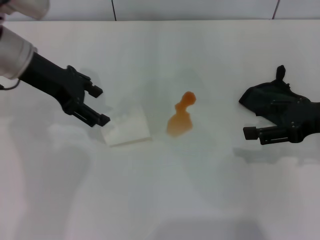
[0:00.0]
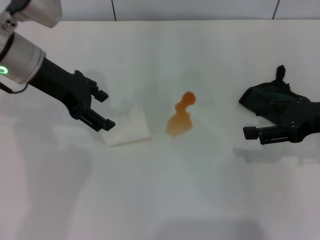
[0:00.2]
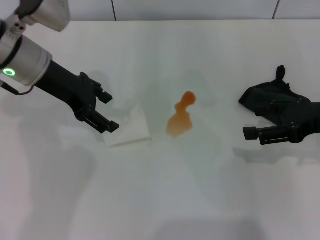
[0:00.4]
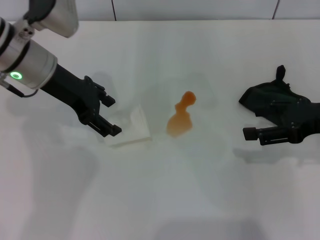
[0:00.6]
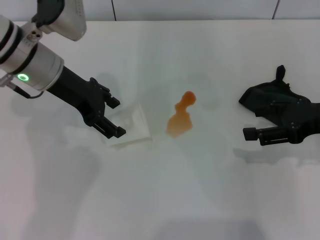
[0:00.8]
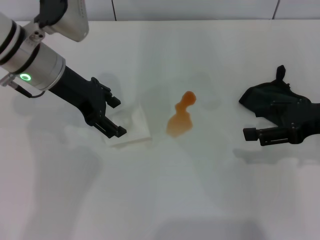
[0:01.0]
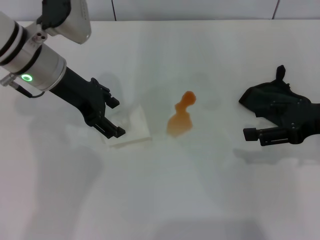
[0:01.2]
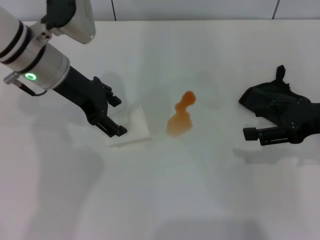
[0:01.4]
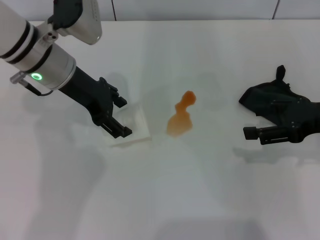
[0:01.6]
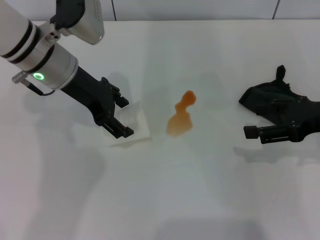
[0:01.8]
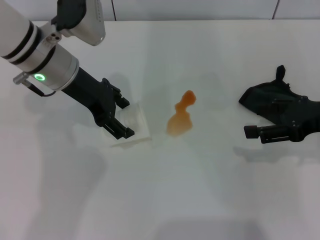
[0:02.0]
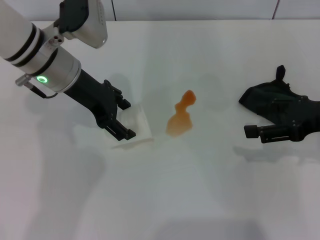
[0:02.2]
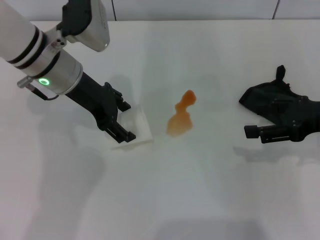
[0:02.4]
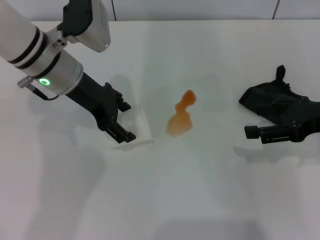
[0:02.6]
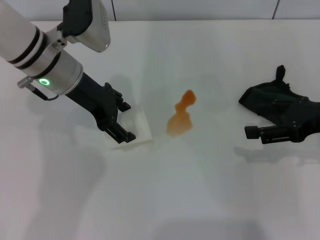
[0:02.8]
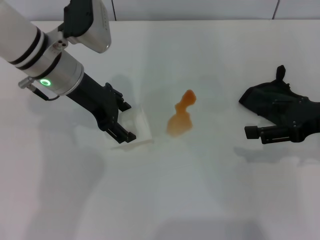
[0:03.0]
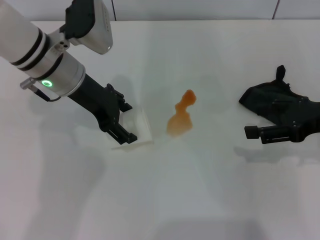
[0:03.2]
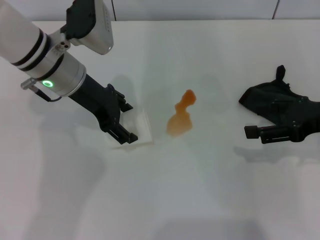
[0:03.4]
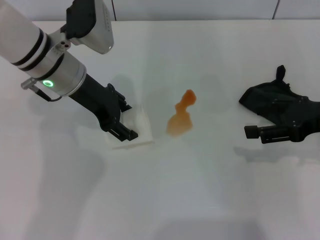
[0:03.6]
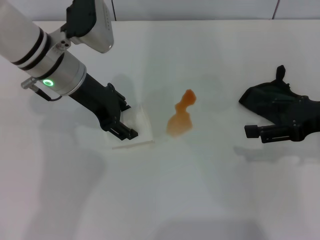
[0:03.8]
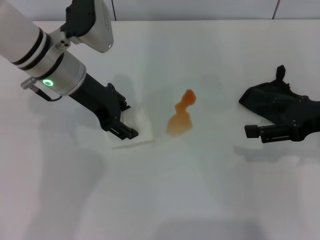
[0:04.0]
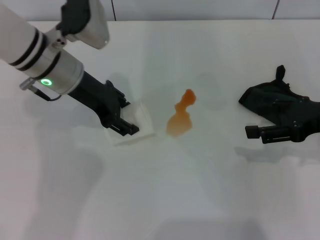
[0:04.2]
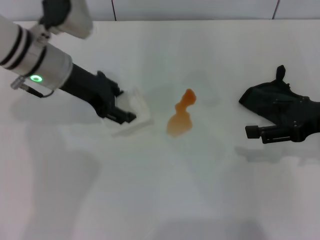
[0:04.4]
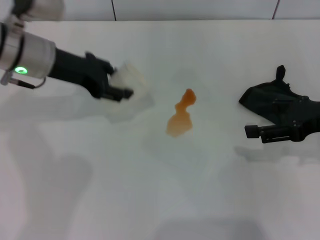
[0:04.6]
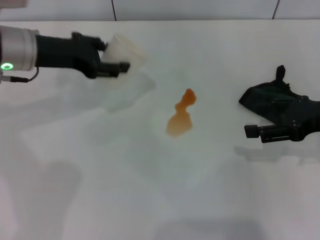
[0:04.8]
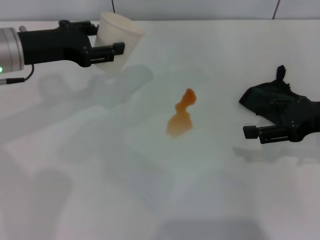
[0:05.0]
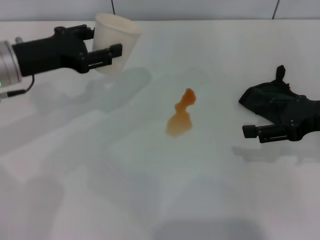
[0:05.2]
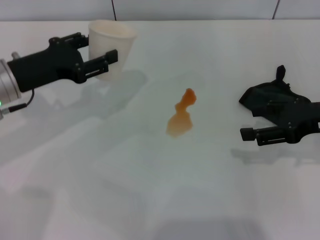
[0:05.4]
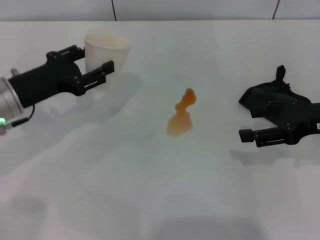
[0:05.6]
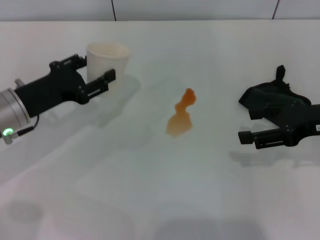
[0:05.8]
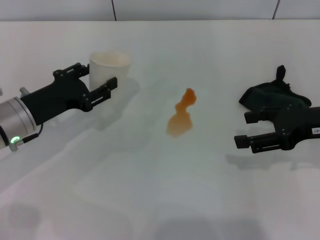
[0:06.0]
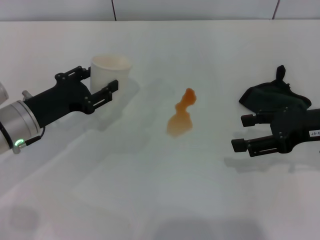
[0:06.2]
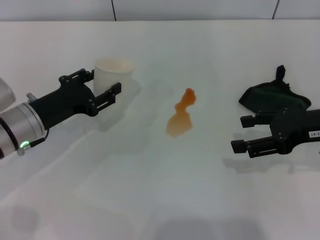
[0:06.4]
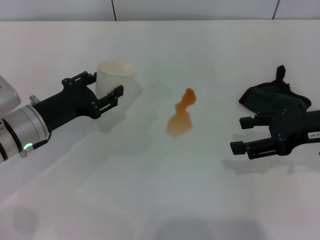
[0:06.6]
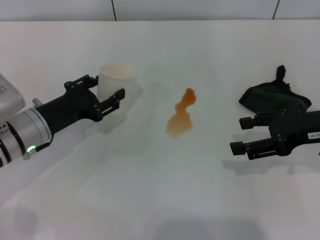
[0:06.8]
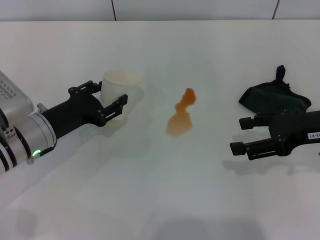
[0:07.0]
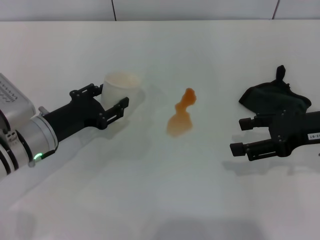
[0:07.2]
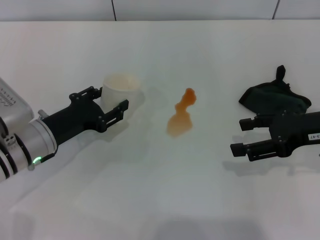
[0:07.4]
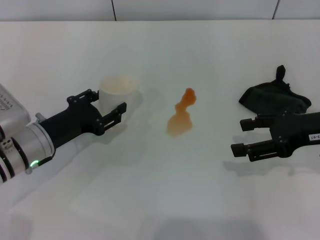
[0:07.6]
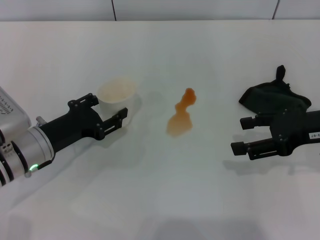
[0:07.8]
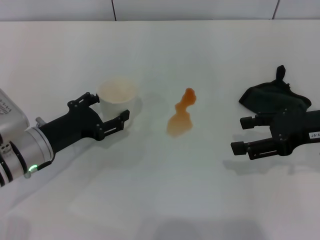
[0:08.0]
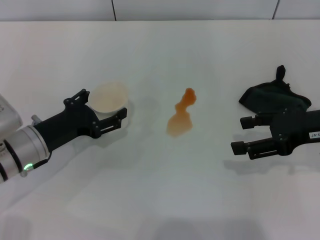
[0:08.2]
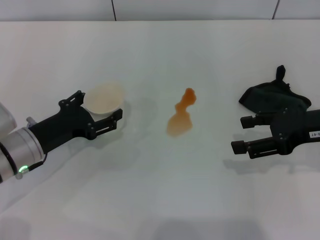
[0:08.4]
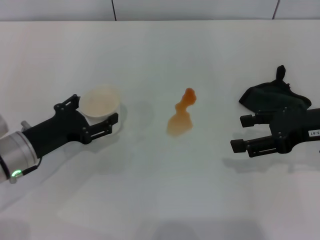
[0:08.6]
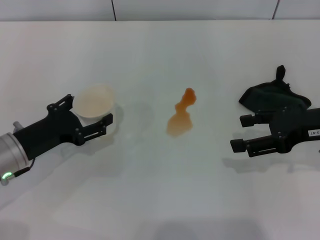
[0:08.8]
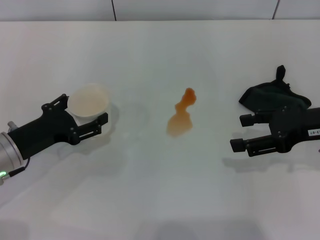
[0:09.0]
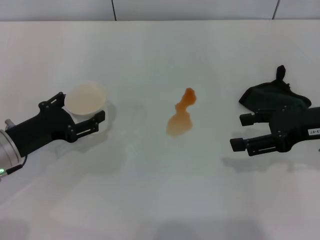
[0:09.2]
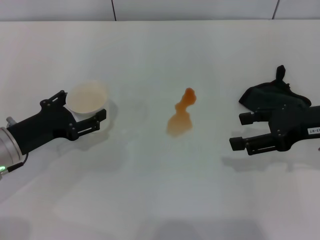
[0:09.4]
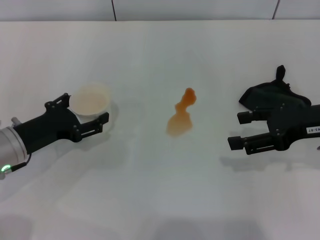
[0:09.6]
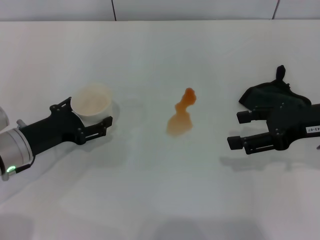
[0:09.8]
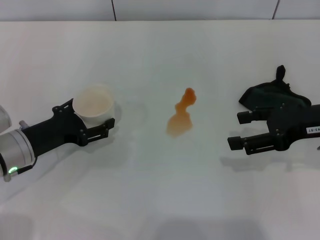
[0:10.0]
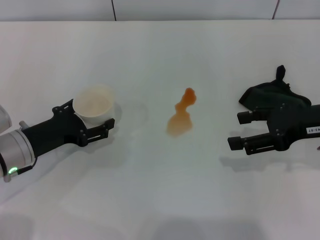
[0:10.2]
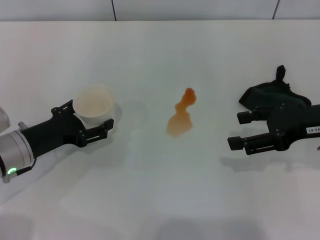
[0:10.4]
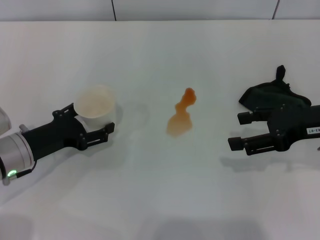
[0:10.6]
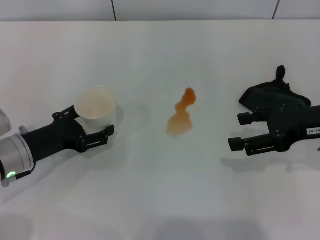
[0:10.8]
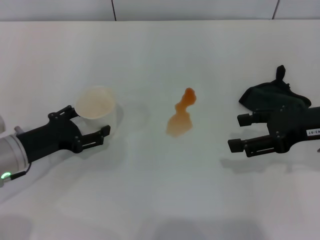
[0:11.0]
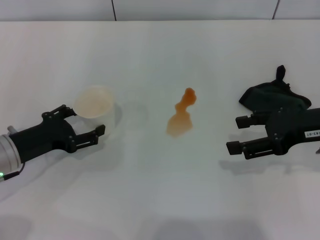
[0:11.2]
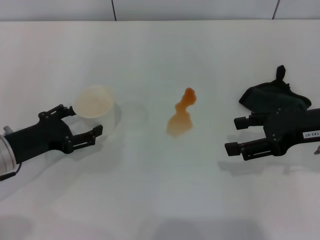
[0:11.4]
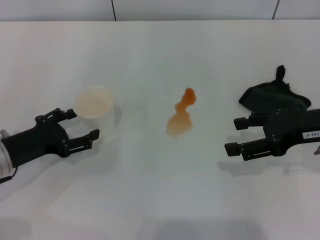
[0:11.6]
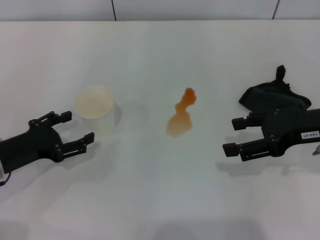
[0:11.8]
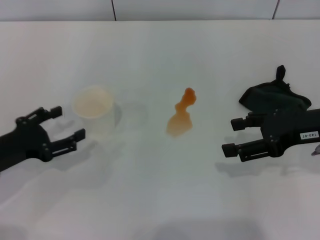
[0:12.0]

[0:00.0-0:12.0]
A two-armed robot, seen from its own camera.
Step, 0:00.0 to 0:04.0: Grasp the paper cup with the left gripper.
Step, 0:04.2 to 0:11.8: Stand the paper cup upright with the left gripper.
0:00.0 to 0:01.6: The left gripper is displaced to the right by some 5 cm.
0:01.6 to 0:03.0: Both grippers stay about where they are.
0:03.0 to 0:04.4: The left gripper closes its fingers.
0:04.4 to 0:06.0: The left gripper heads downward, backward and to the left, covering approximately 15 cm.
0:06.0 to 0:07.6: There are only small adjustments of the grippers.
0:07.6 to 0:09.0: The left gripper opens up.
0:09.0 to 0:10.4: The grippers stay close to where they were, moving slightly.
0:10.4 to 0:12.0: The left gripper moves about 5 cm.

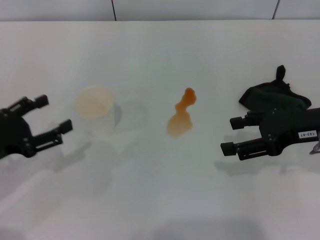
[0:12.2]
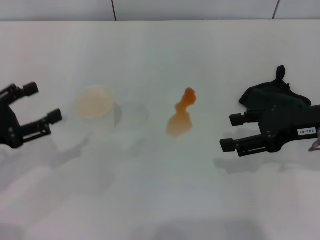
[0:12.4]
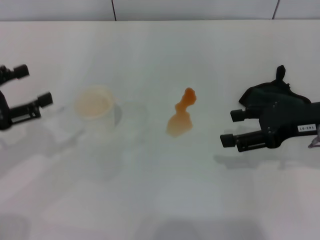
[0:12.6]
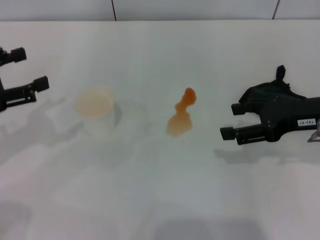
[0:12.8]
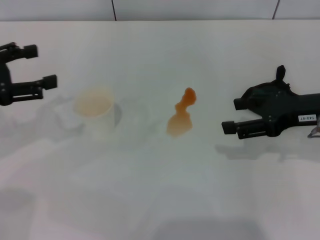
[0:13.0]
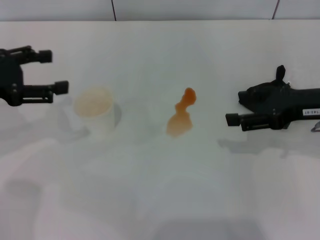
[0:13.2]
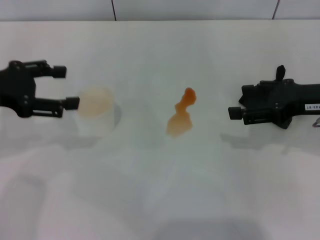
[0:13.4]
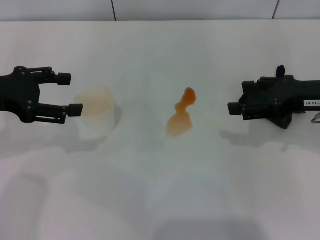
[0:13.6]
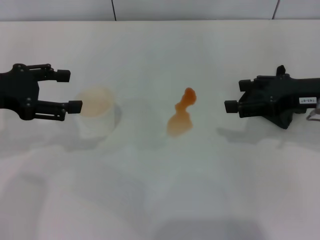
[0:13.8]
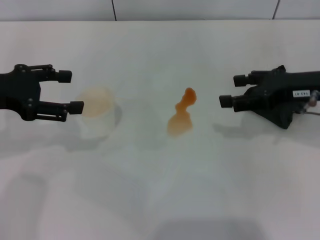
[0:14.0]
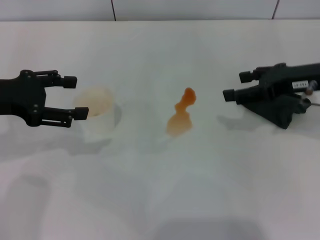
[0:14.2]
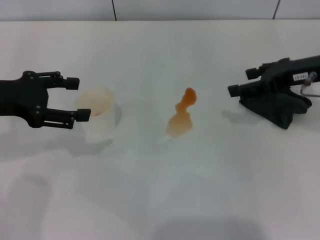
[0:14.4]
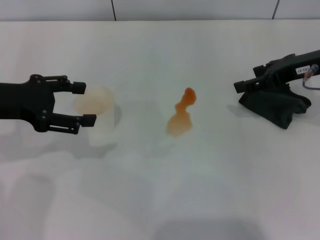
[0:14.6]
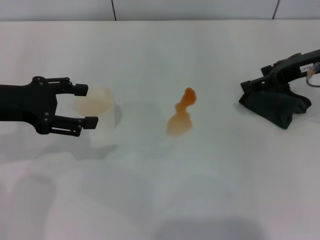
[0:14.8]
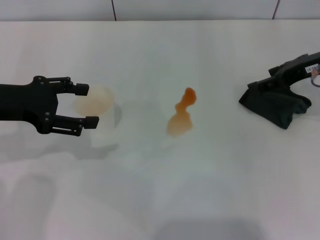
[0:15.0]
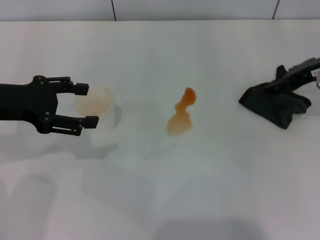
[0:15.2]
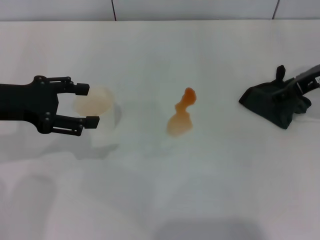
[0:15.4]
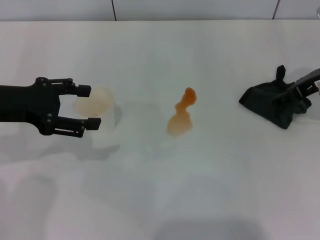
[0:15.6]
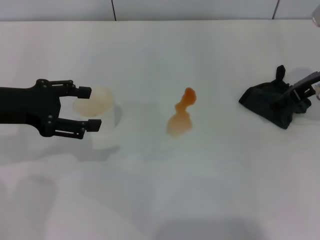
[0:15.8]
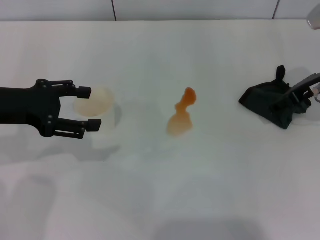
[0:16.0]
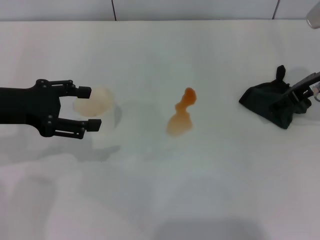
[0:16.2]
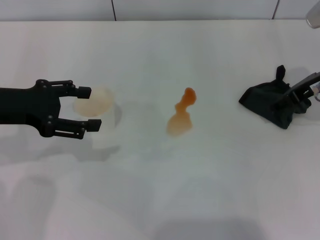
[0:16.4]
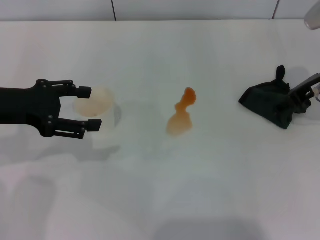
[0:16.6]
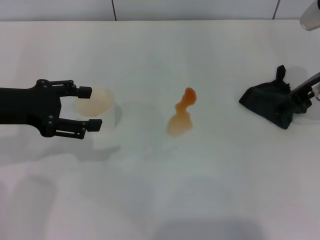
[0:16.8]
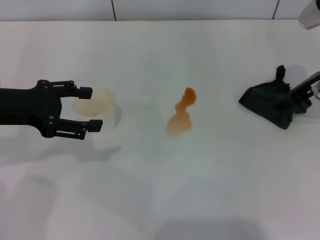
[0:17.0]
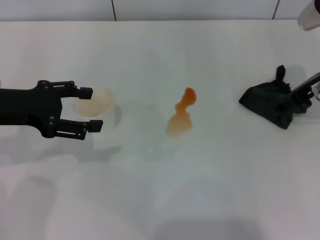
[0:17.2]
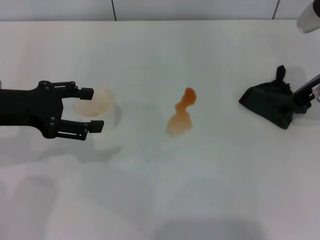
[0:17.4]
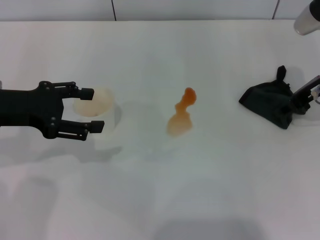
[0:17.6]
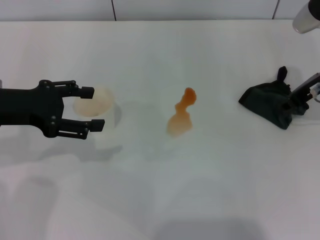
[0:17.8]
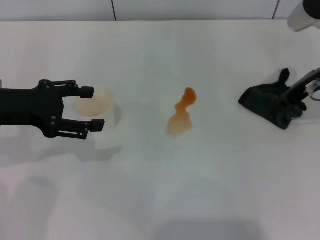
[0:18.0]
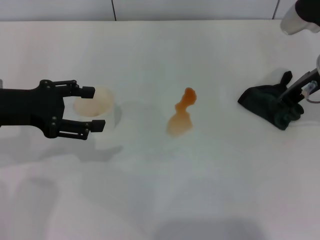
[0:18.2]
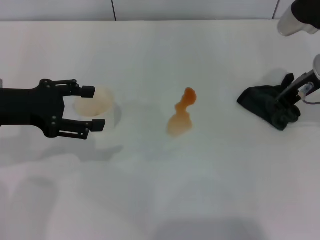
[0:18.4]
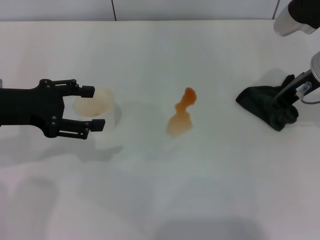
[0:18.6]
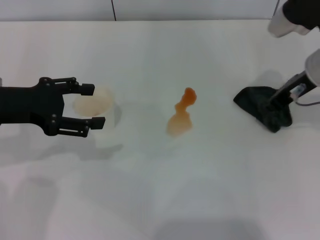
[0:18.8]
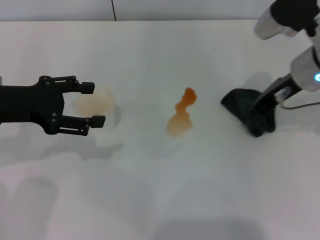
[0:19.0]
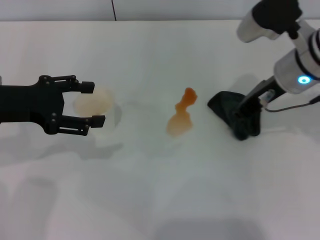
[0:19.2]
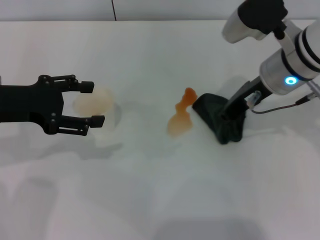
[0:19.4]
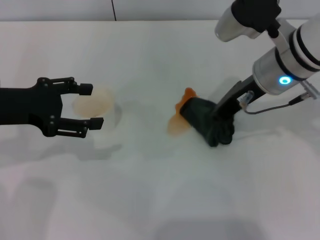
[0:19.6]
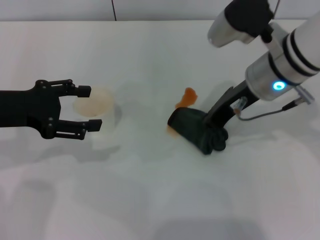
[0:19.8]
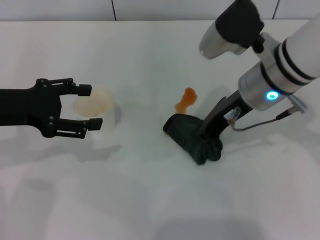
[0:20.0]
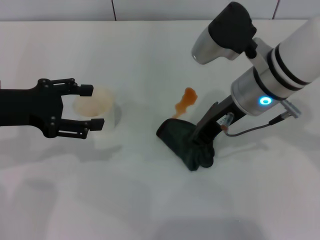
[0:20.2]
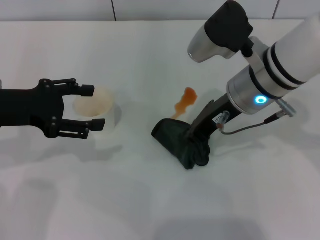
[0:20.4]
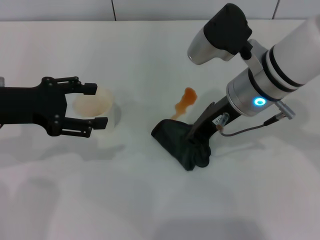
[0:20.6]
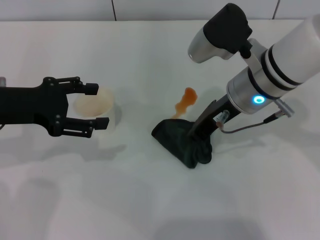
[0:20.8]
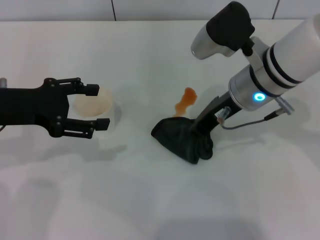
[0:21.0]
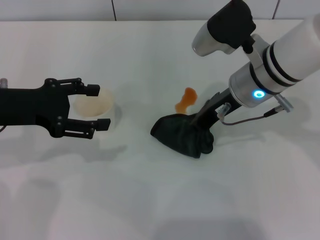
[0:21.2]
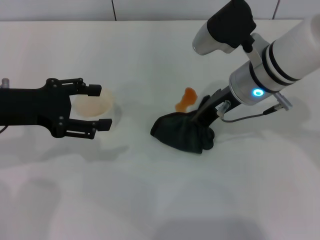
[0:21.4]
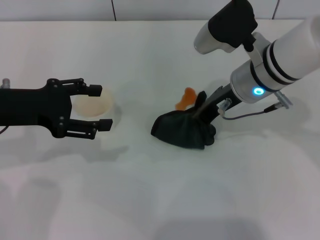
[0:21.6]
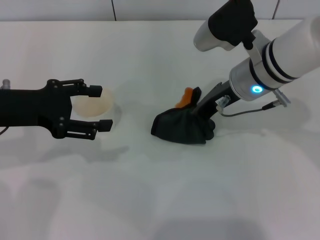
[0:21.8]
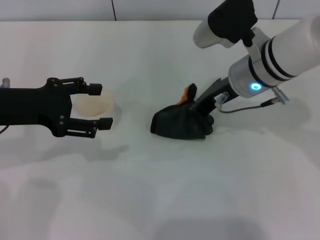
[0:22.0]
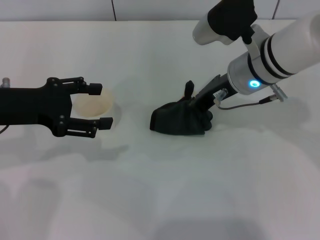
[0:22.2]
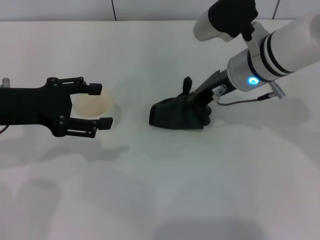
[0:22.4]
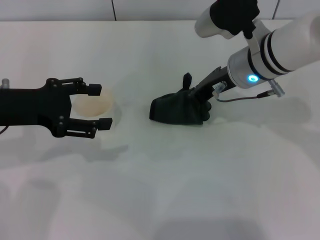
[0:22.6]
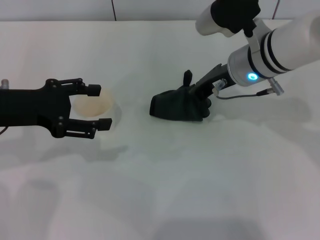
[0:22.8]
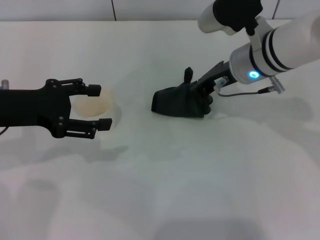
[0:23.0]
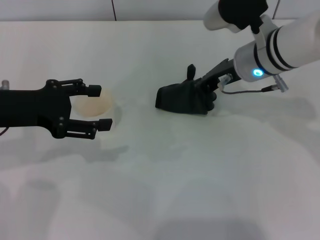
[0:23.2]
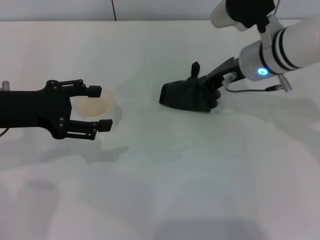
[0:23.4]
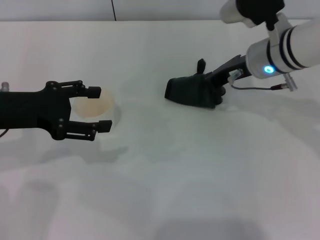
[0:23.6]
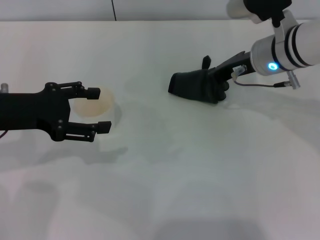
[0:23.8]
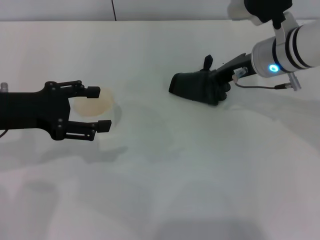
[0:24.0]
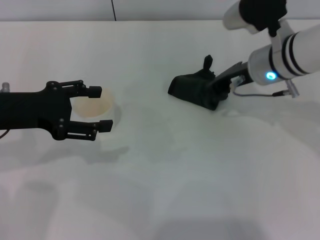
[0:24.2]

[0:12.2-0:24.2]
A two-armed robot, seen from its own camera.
Step, 0:12.2 to 0:18.0: Grasp the rag with the right gripper.
0:12.2 to 0:13.8: The left gripper moves upward and forward, some 15 cm.
0:13.8 to 0:15.2: The right gripper goes some 5 cm forward.
0:15.2 to 0:16.6: There are only small adjustments of the grippers.
0:16.6 to 0:18.2: The right gripper closes its fingers.
0:18.2 to 0:19.8: The right gripper goes roughly 10 cm to the left.
0:19.8 to 0:22.6: There are only small adjustments of the grippers.
0:22.6 to 0:24.2: There are only small adjustments of the grippers.
